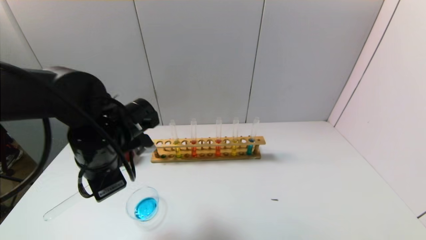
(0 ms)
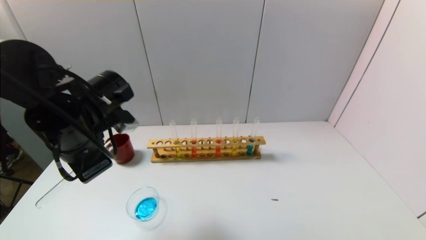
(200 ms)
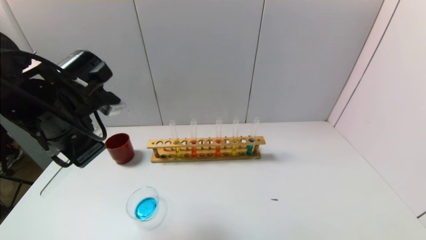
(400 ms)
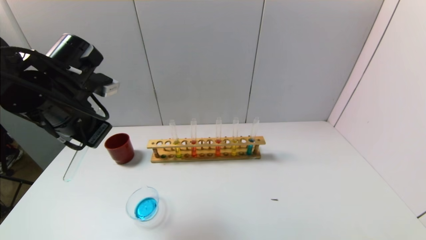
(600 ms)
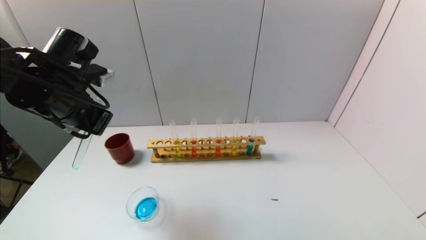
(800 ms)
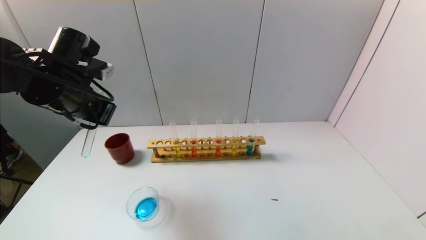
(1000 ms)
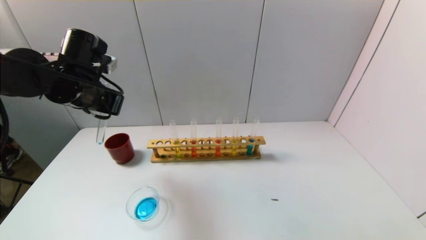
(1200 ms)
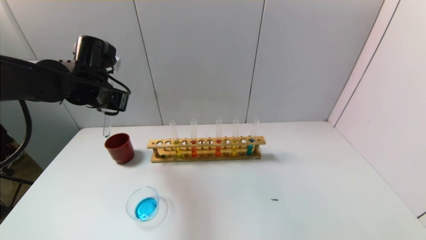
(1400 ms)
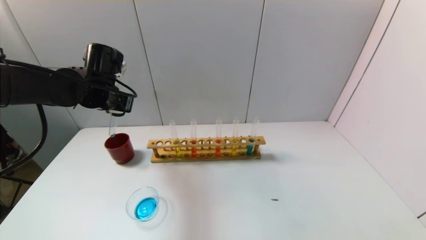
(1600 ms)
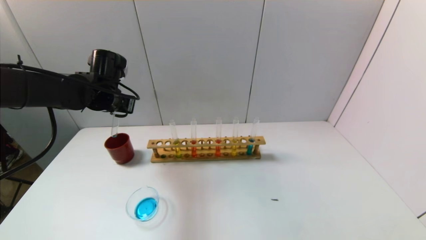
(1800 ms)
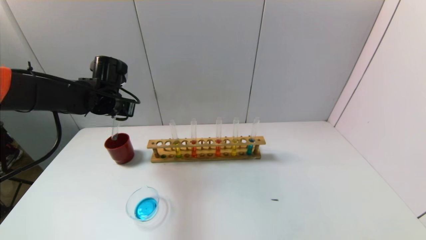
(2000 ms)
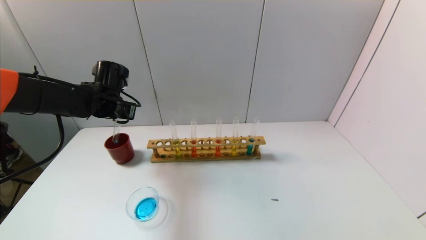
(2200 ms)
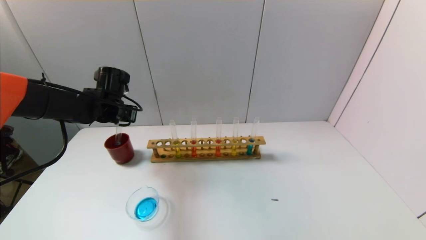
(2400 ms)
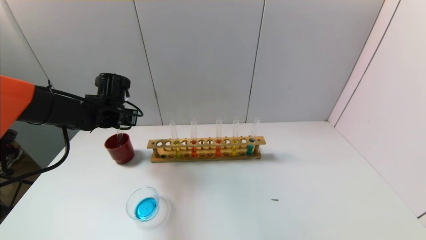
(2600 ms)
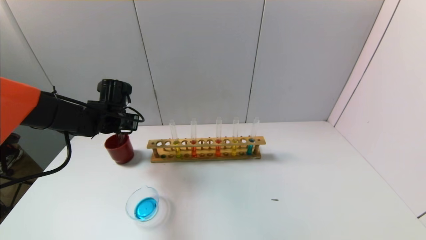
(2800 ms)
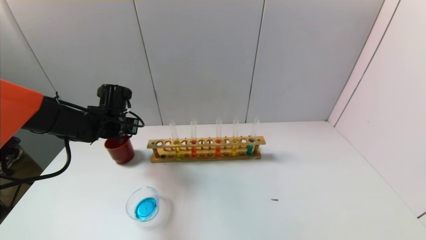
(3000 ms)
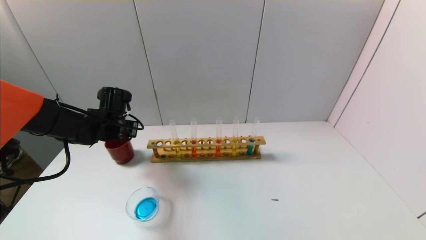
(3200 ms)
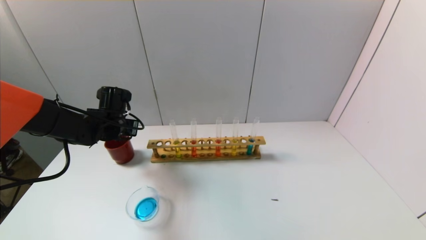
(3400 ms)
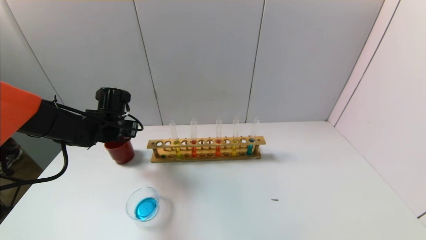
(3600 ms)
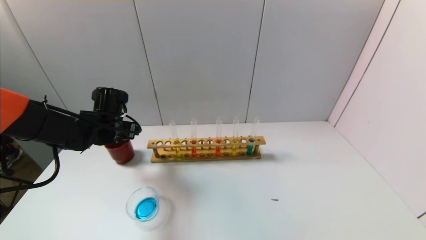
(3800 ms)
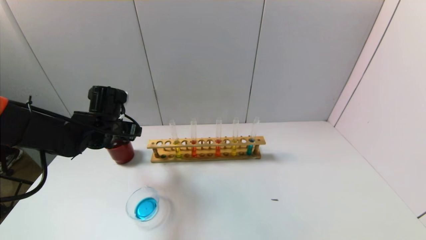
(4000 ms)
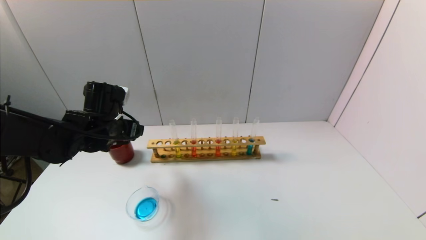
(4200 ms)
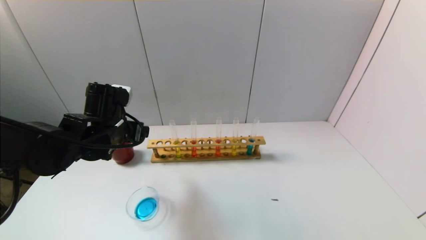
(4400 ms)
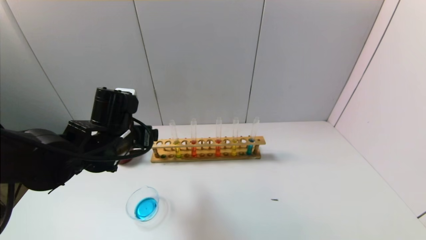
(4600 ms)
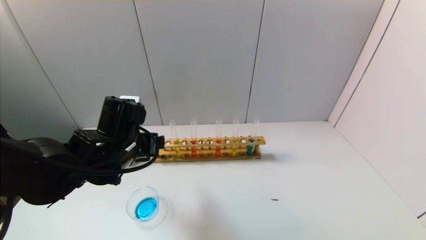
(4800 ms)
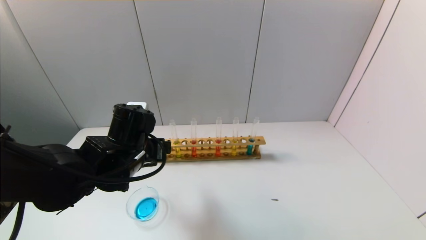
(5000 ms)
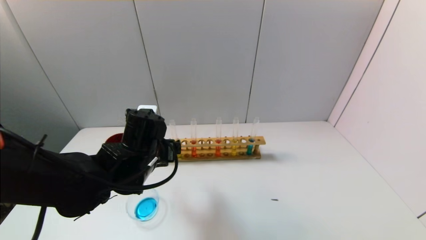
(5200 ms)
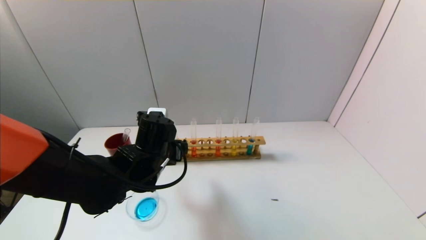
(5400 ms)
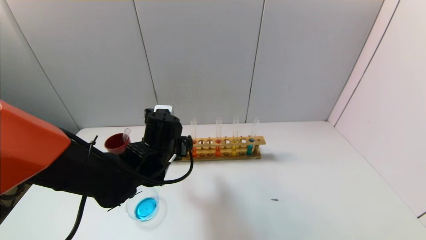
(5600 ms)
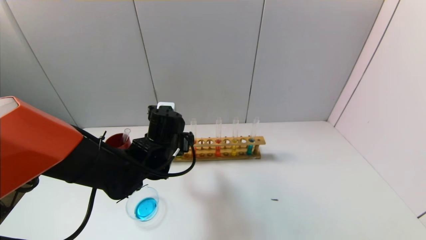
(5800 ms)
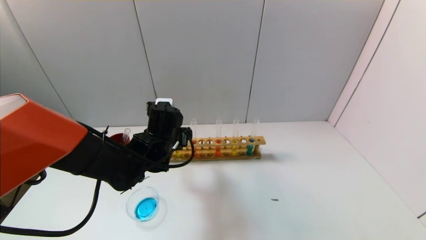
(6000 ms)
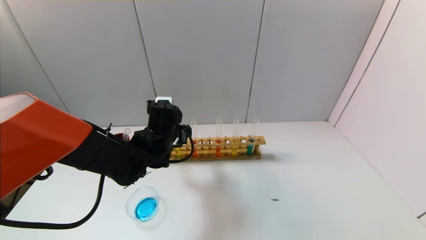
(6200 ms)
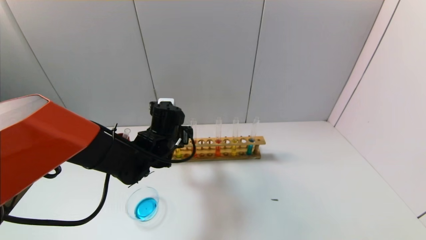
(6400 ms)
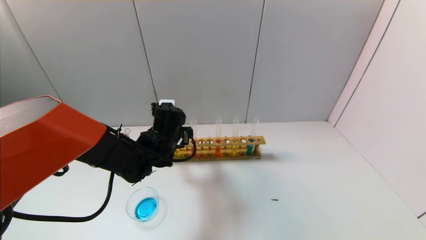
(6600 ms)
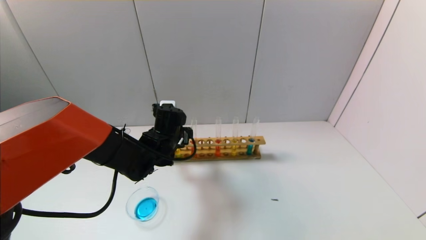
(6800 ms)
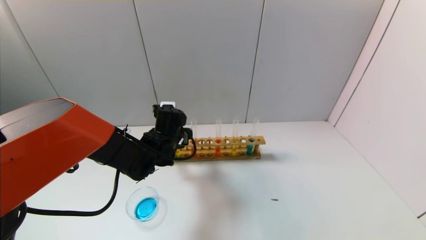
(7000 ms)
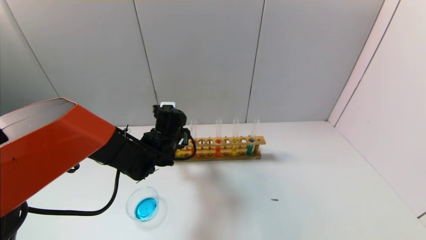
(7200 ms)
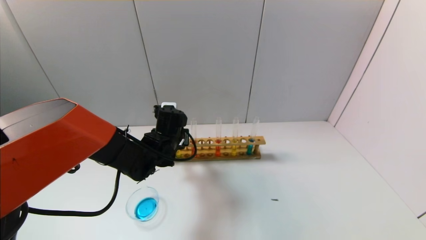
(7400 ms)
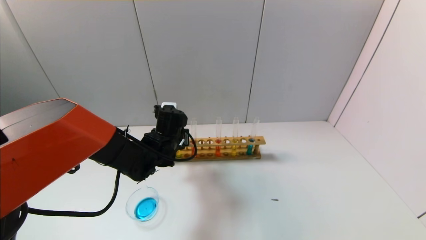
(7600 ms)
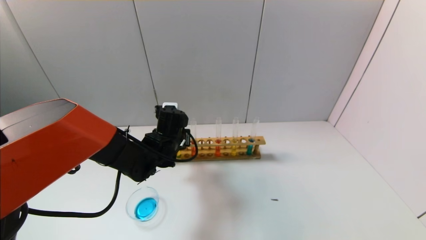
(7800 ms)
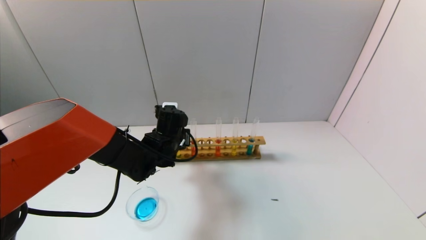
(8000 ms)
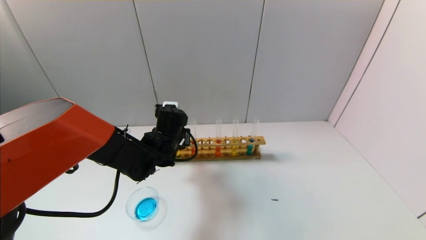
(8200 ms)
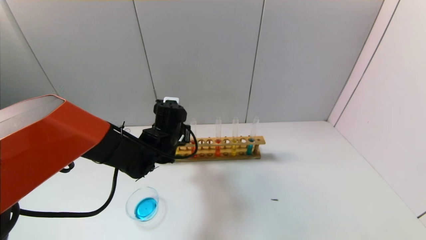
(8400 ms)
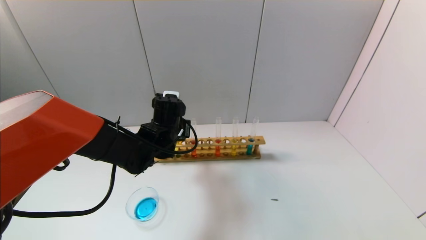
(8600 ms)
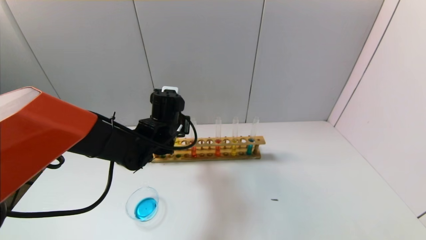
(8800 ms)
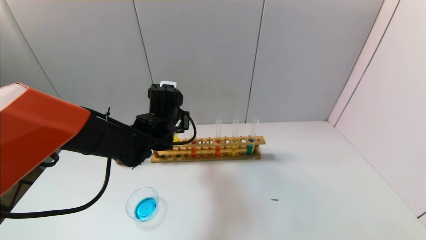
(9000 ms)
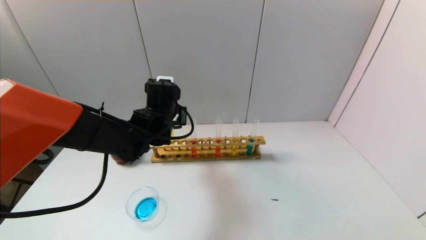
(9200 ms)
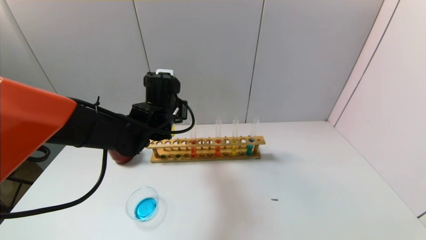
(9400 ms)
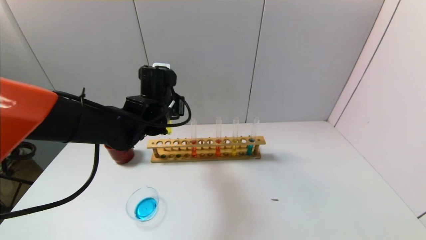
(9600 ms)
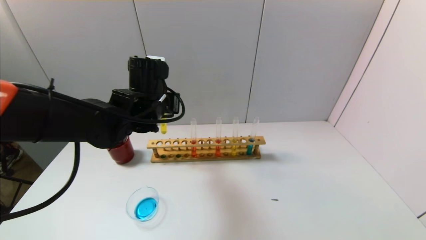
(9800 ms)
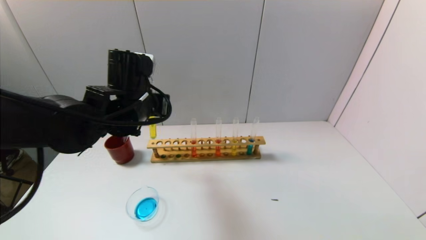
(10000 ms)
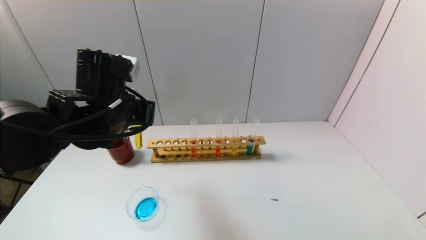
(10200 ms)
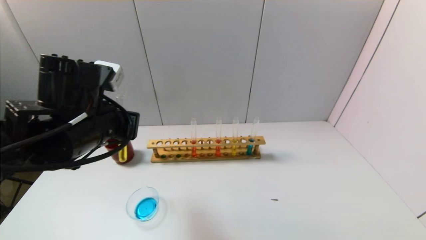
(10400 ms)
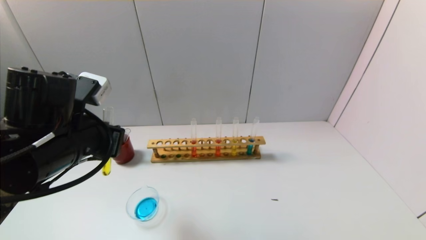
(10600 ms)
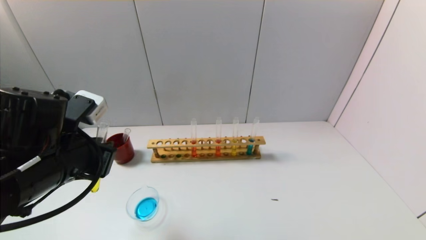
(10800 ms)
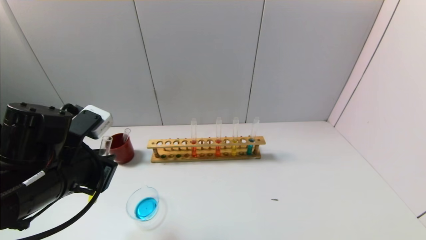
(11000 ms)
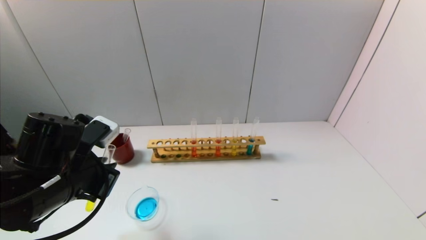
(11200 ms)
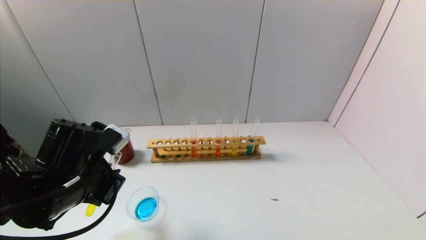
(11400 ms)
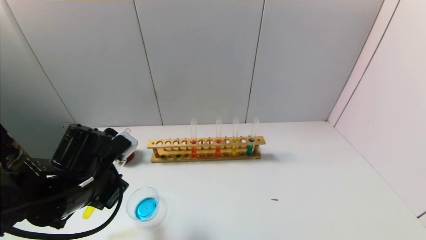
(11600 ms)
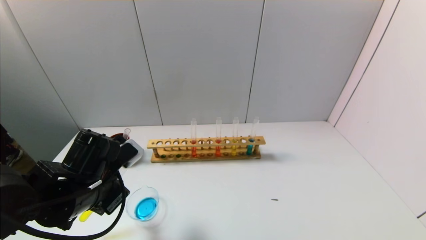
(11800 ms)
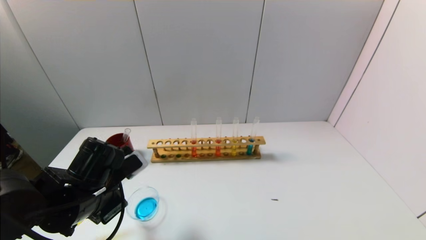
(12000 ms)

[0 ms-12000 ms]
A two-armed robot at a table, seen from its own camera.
Task of the whole recording: pick up the test tube with yellow pigment and the test tube with blue pigment by grippers and pour them into the beaker.
Step, 0 ms to 3600 ms: Place the test tube into the brown cup with the left gripper.
Step, 3800 ms to 8000 ms: Grasp the yellow reagent with the left gripper.
0 ms to 1600 ms: The left gripper moves forward and to the left, roughly 15 cm.
1600 ms to 3000 ms: The left gripper shifts roughly 10 cm downward.
3000 ms to 4400 ms: The left gripper shifts about 10 cm backward and to the right, and opens up.
4400 ms to 6000 ms: The left gripper moves to the right and downward, approximately 10 cm.
6000 ms to 7600 ms: The left gripper closes its fingers.
7600 ms to 9000 ms: The left gripper goes about 5 cm upward.
9000 ms to 10400 ms: The left gripper shifts some 15 cm backward, upward and to the left.
10400 ms to 12000 ms: The left gripper shifts some 10 cm downward.

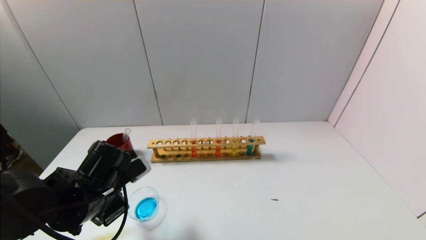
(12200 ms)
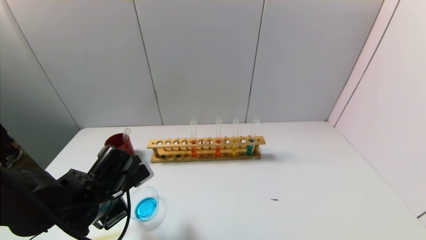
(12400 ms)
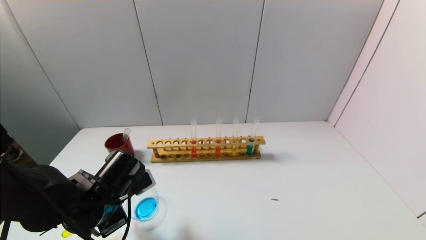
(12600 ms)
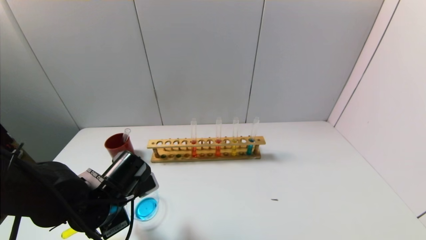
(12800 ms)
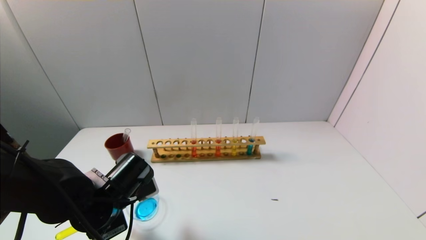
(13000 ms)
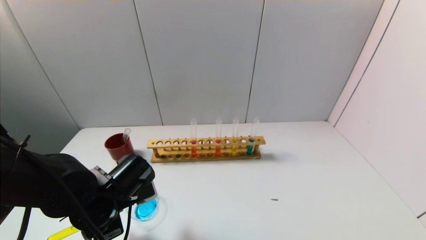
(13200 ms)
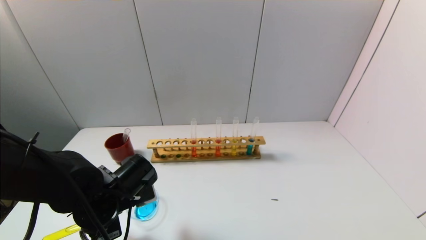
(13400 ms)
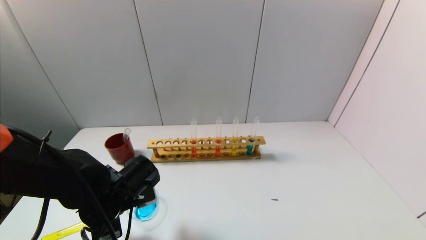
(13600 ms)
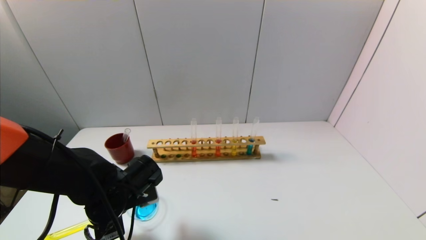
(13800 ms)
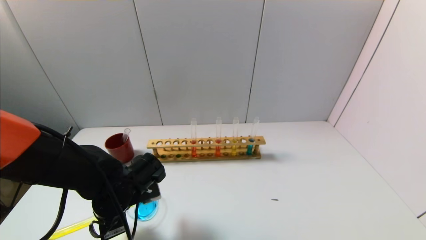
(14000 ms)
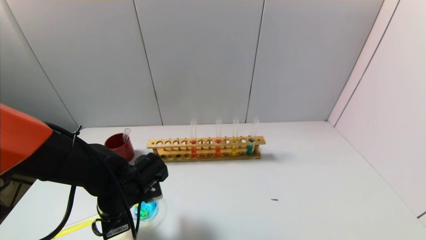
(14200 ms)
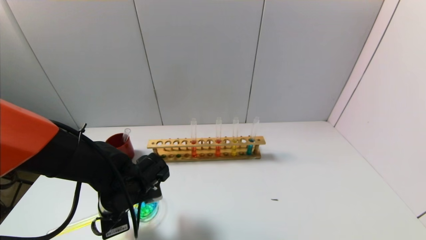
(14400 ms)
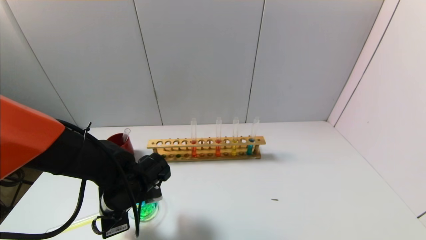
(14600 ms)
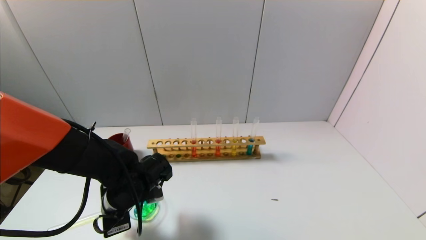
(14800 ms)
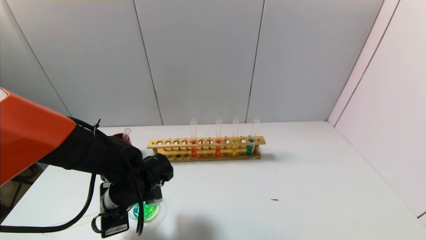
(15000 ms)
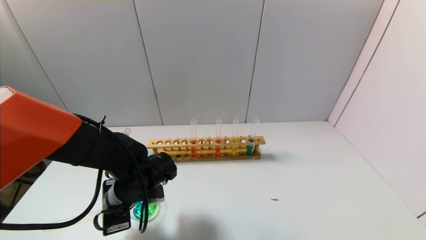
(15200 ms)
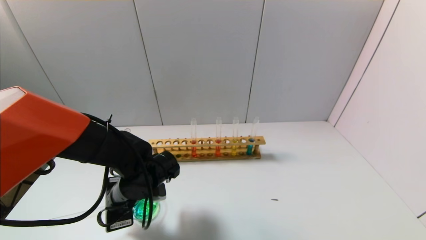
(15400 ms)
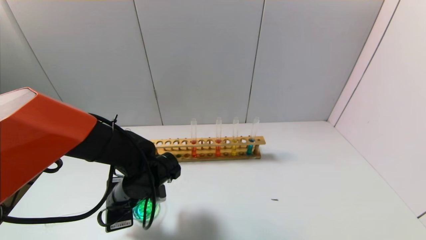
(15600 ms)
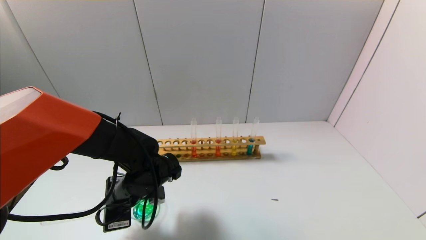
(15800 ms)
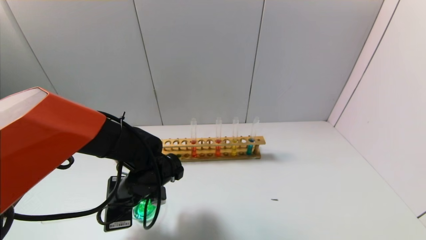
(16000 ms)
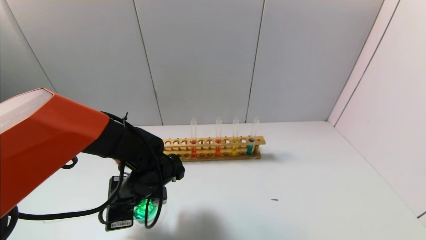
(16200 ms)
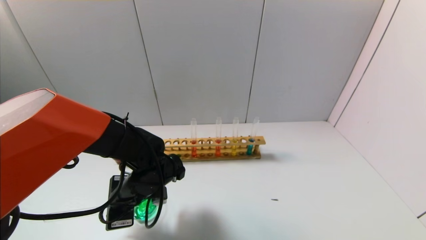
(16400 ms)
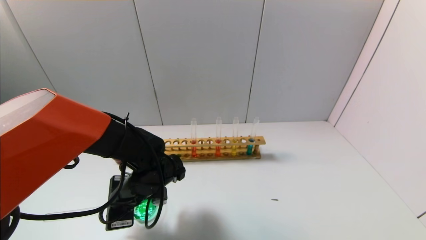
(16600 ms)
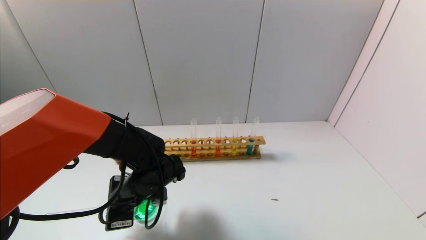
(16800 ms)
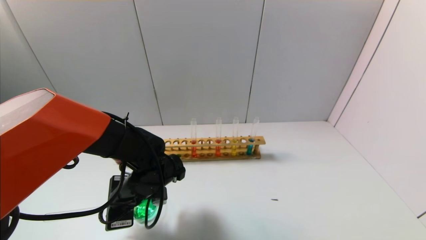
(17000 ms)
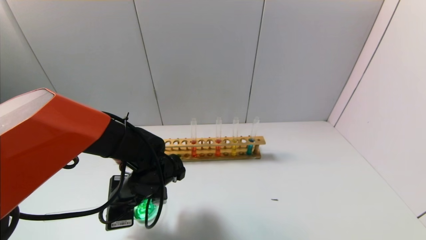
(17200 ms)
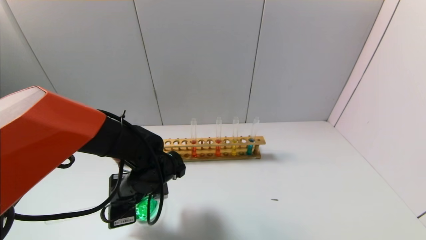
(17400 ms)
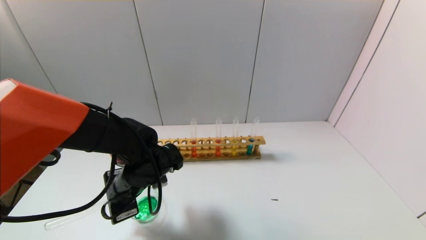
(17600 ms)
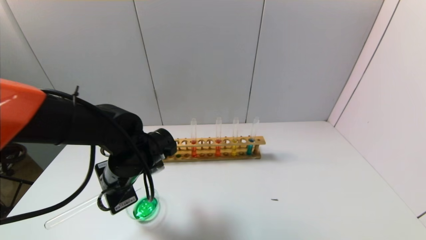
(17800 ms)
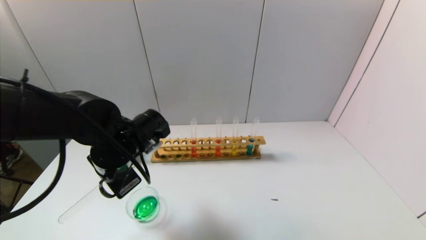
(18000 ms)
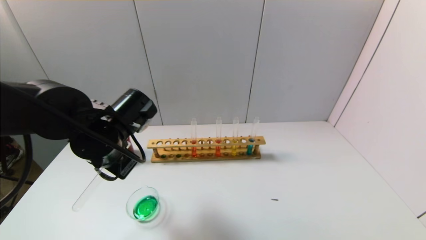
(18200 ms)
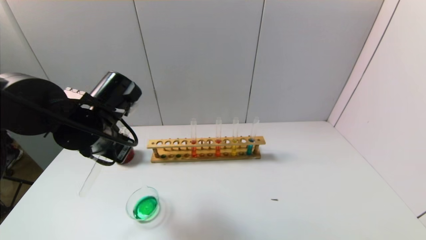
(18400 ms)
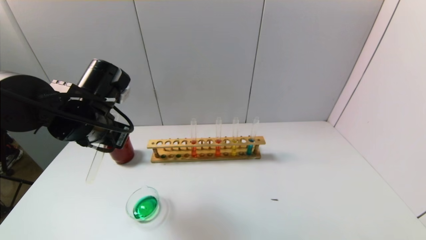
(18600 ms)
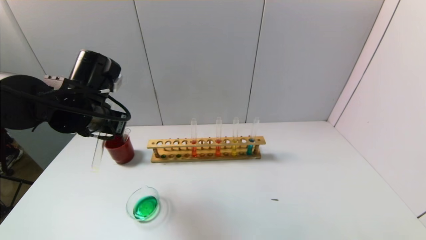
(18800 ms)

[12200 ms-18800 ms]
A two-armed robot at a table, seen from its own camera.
Task of the whole recording: pick up the test tube with yellow pigment and the test tube with blue pigment by grippers and pour them into the beaker.
Step, 12200 ms to 16000 ms: Pour the yellow reagent into the graduated cylinder with the left gripper.
13800 ms to 15400 ms: The grippers make only small movements.
15400 ms to 17200 ms: The grippers move only a little.
17200 ms to 18800 ms: The left gripper shifts approximately 15 cm upward and to the left.
